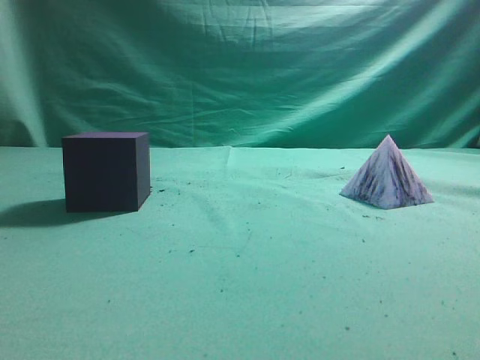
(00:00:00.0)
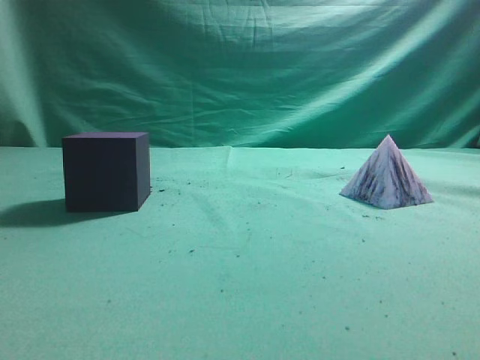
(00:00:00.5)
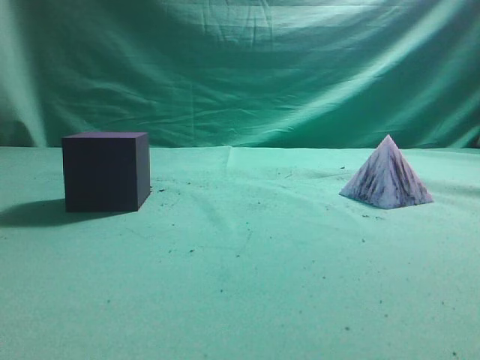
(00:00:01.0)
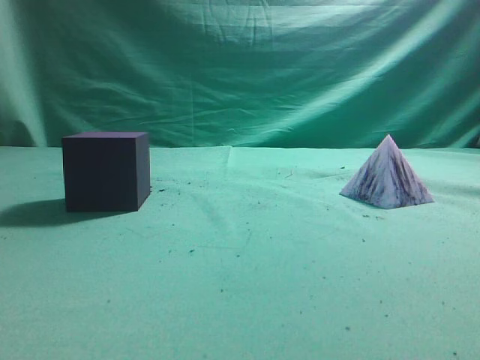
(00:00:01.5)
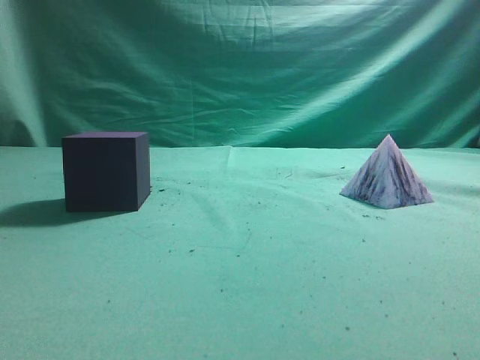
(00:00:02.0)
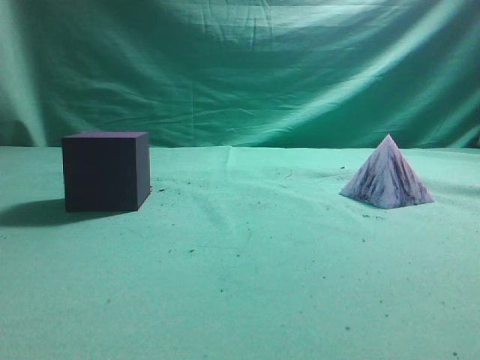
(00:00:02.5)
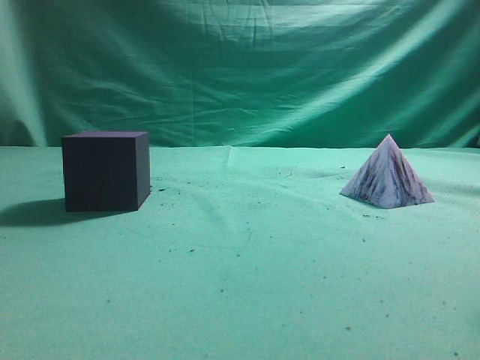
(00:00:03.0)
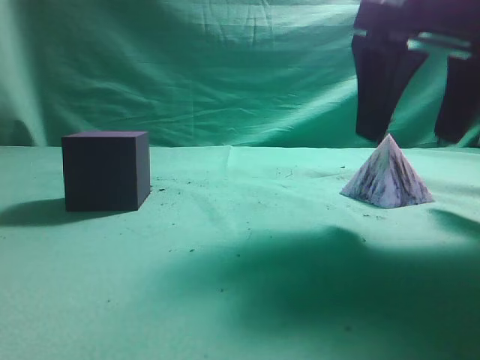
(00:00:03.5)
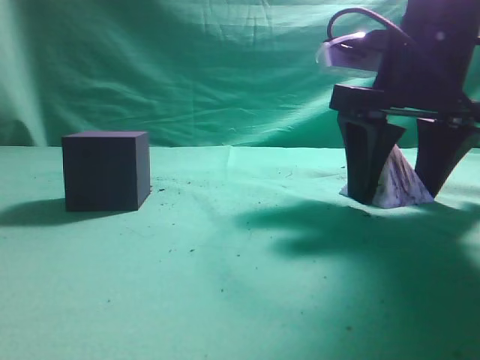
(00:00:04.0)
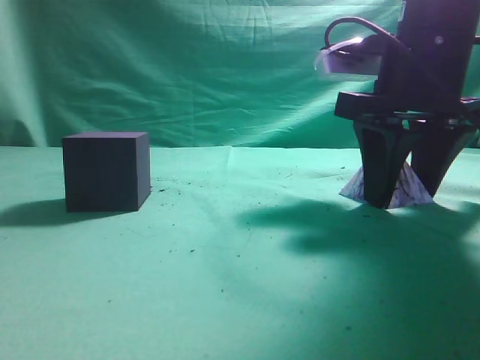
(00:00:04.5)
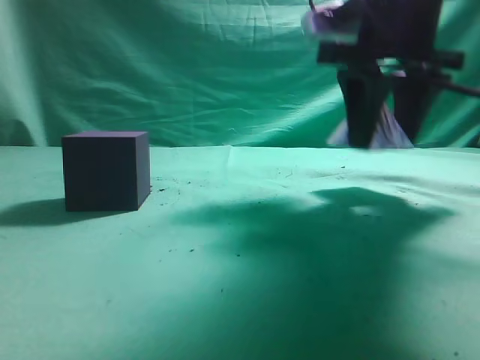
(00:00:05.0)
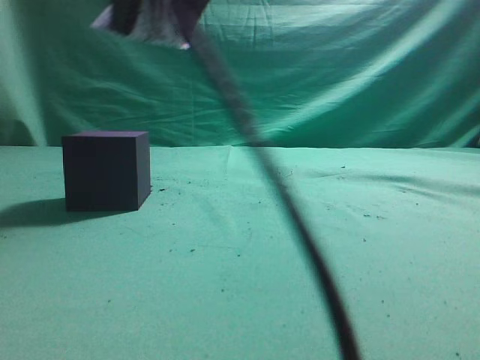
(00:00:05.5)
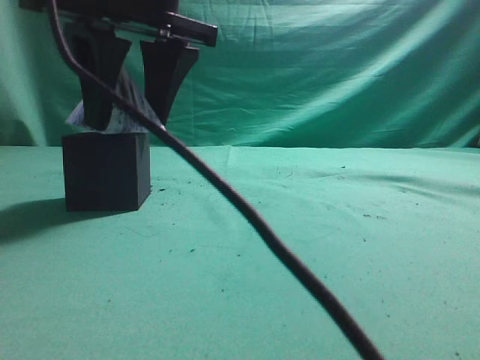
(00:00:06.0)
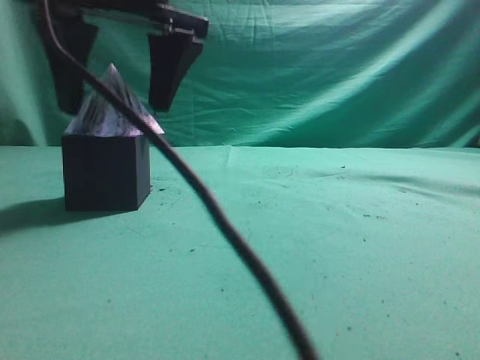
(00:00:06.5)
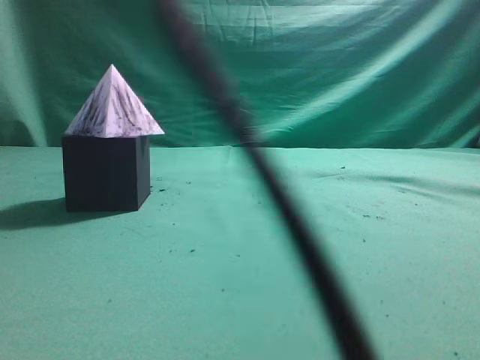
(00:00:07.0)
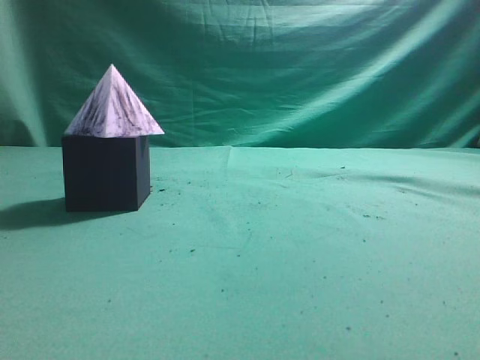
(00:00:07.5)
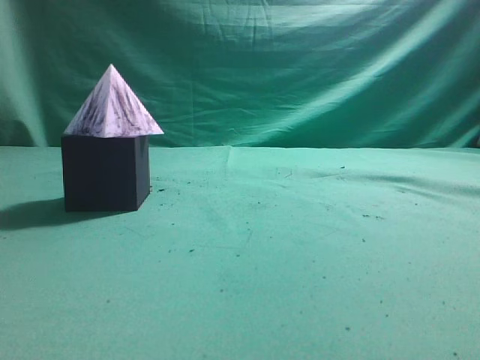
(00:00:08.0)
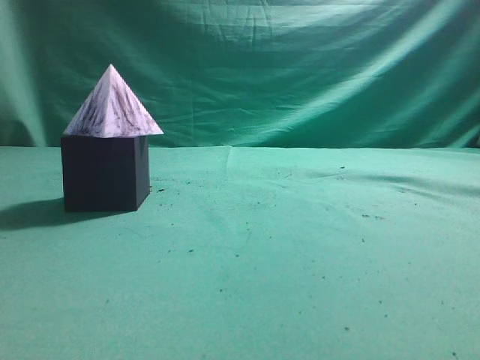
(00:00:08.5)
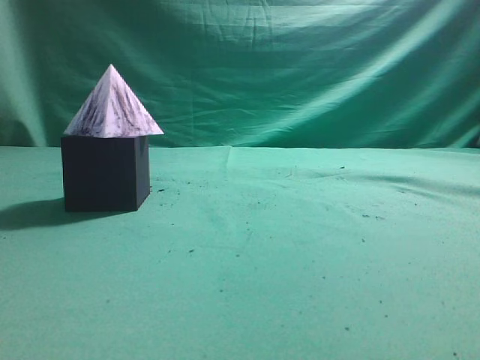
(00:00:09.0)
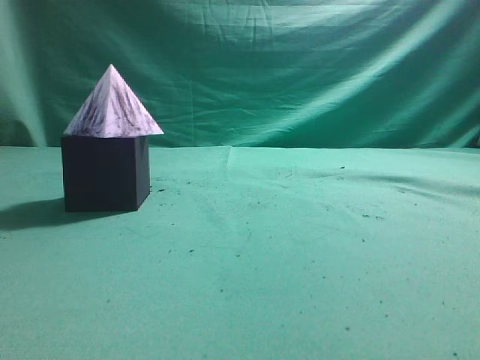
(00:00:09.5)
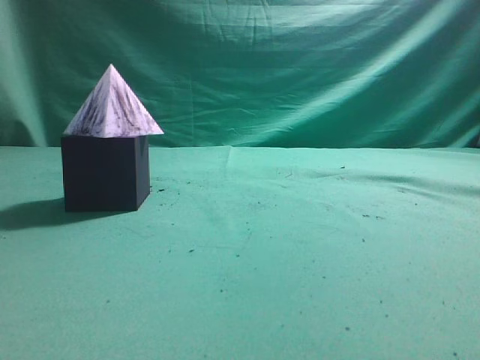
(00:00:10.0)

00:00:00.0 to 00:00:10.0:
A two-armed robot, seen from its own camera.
Task of the whole recording: pick up the square pyramid from the table and place it on the cube block.
Step, 00:00:00.0 to 00:00:04.5: Grasp the triangular block.
Step, 00:00:05.0 to 00:00:06.5: Place the block onto the cube-shaped block.
00:00:02.0 to 00:00:04.0: The right gripper heads forward and to the left, covering roughly 30 cm, and opens its fingers.
00:00:04.0 to 00:00:06.0: The right gripper goes about 20 cm to the left.
00:00:06.0 to 00:00:08.0: The right gripper goes some 40 cm to the right, backward and upward, and closes its fingers.
